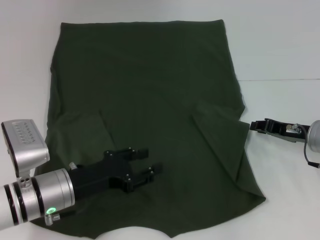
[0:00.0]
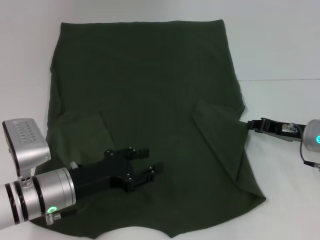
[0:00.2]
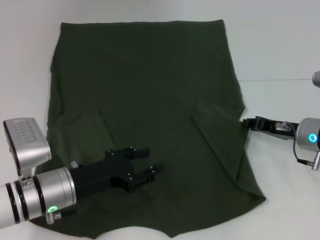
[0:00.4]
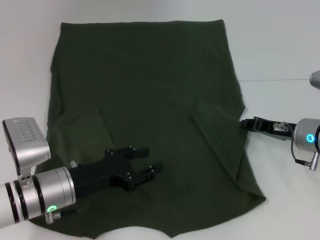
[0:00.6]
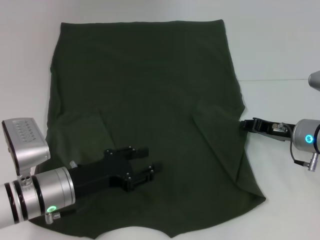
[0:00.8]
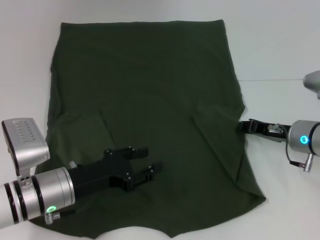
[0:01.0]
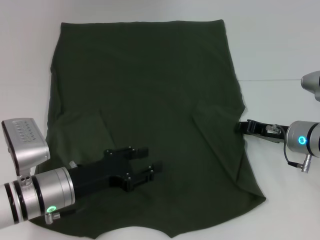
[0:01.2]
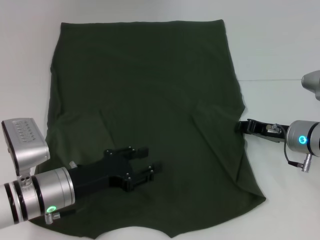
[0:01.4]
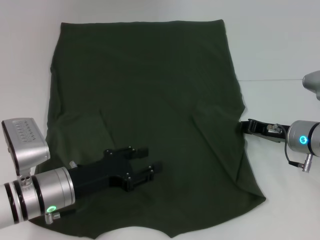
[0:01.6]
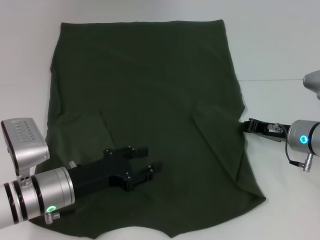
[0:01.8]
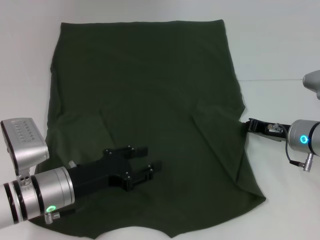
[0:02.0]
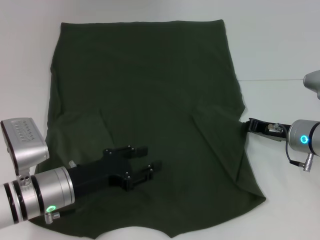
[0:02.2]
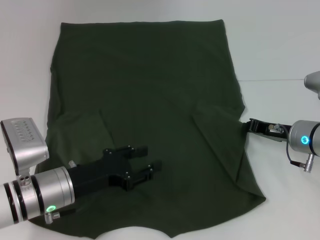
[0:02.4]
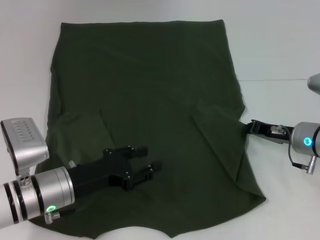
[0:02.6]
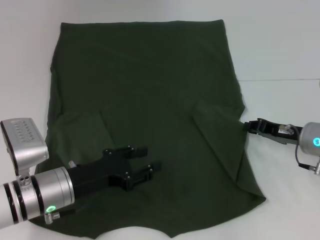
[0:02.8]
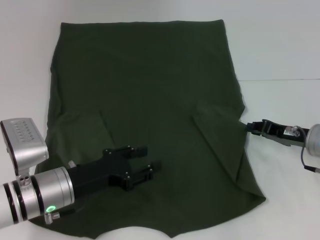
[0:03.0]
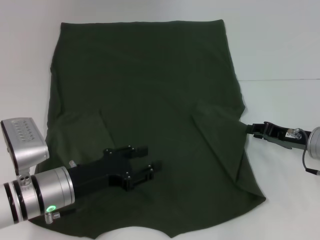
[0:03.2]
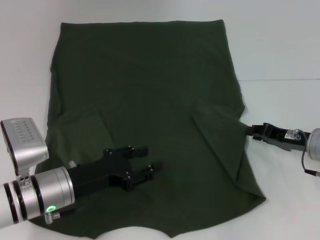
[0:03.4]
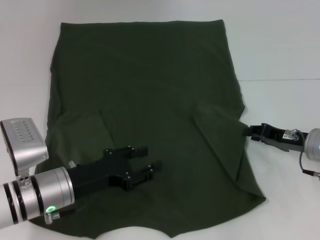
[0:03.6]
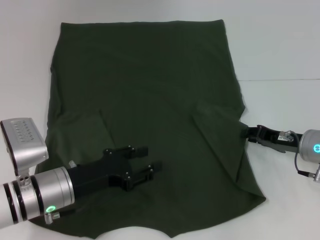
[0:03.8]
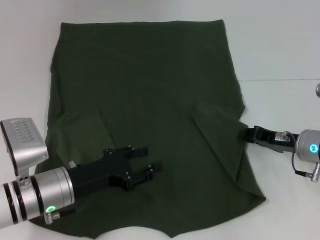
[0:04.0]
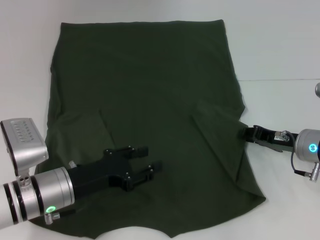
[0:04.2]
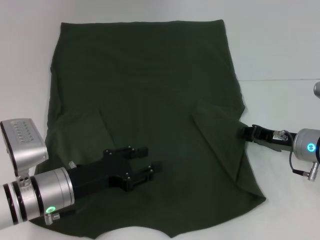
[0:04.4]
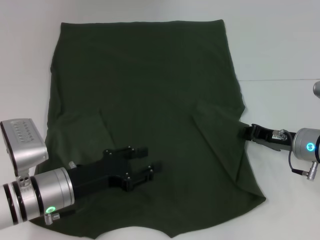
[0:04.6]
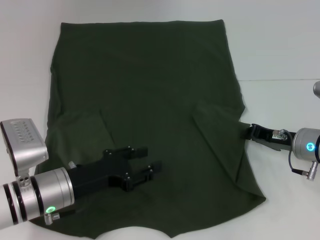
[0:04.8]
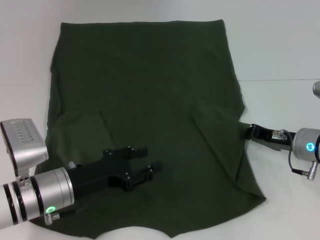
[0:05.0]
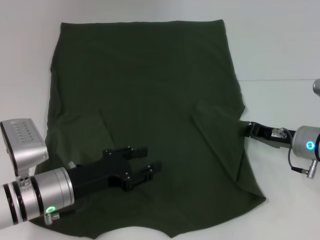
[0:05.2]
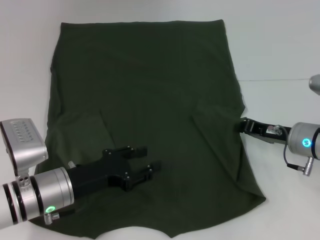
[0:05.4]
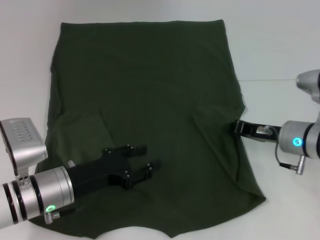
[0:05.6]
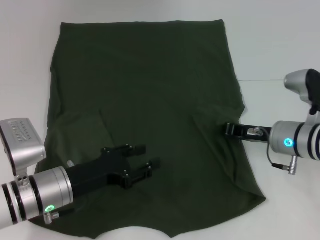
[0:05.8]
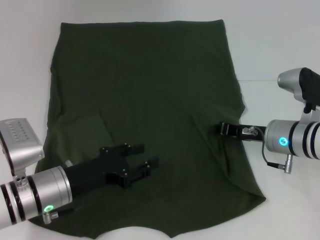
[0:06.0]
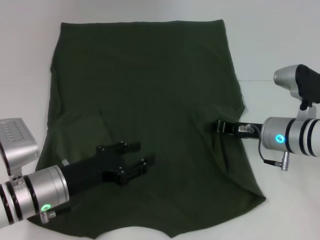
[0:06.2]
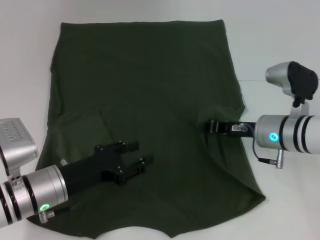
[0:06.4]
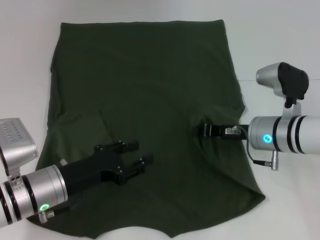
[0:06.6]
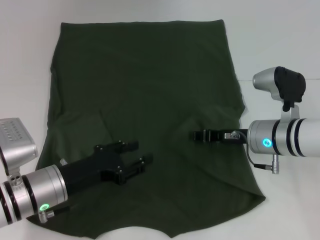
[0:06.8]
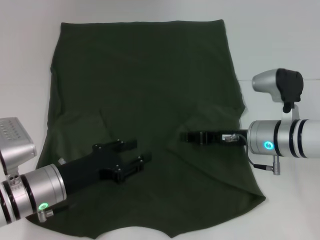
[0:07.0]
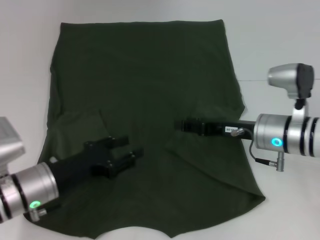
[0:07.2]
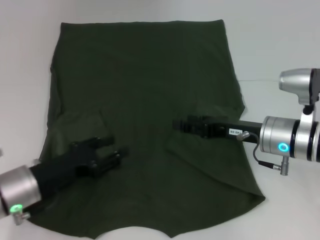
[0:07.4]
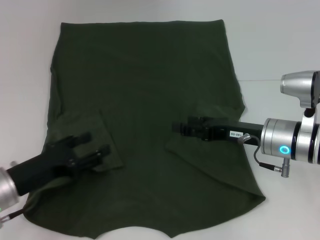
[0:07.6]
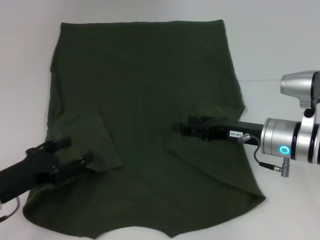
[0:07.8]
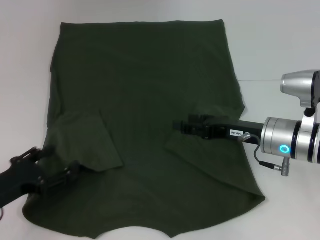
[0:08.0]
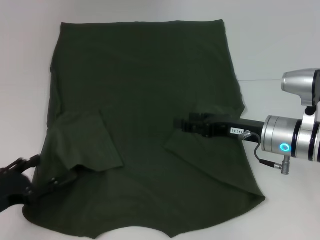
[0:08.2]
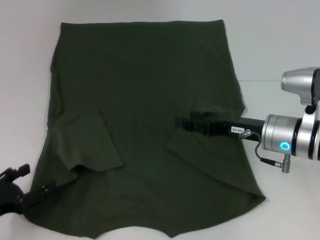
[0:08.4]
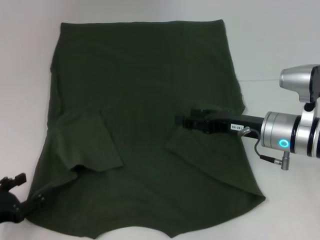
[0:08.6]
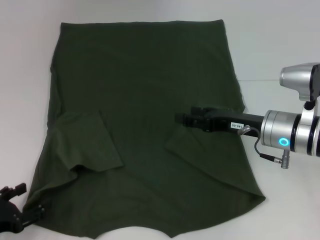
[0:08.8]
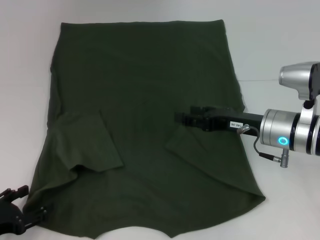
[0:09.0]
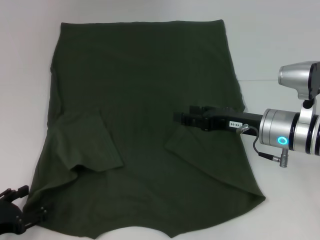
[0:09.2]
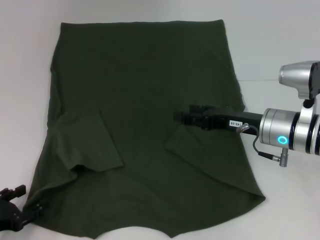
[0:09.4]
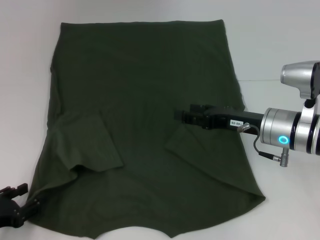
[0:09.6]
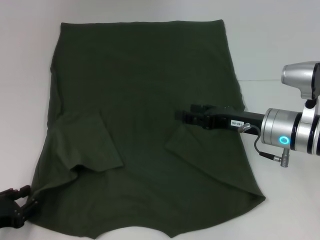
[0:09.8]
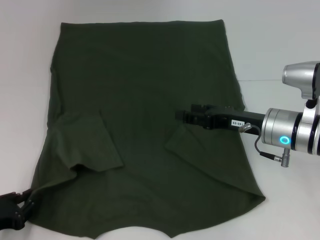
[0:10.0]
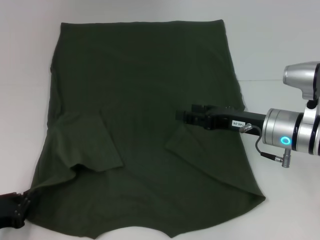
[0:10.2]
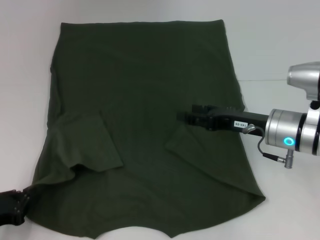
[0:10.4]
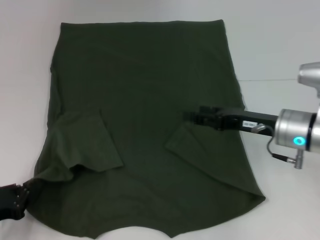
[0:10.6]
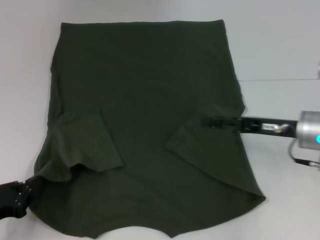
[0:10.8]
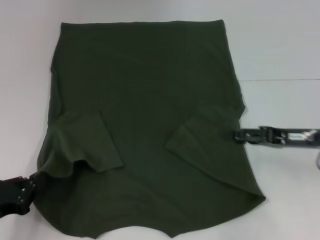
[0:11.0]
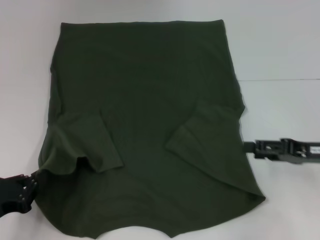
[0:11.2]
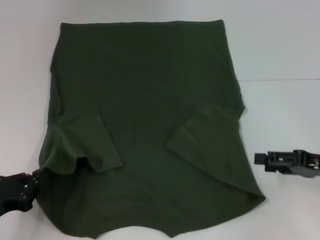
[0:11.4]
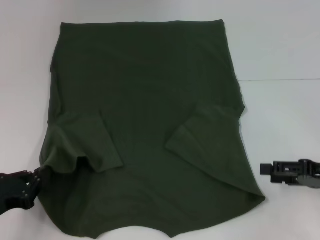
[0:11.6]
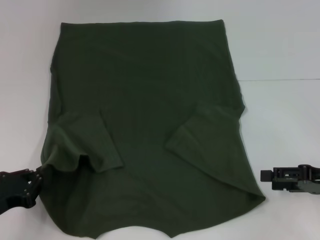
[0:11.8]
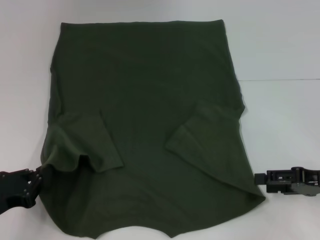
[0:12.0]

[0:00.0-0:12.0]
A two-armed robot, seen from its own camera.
Step, 0:00.0 to 0:06.8: Fold the bottom right sleeve with your right hand.
Step, 0:07.0 to 0:10.2: Grab the bottom left corner with your left hand.
0:00.0 to 0:04.4: The grippers make only small movements.
0:04.4 to 0:06.0: The right gripper shifts by about 5 cm.
0:06.0 to 0:07.6: The right gripper opens its fingers, while the left gripper shifts approximately 5 cm to the left.
0:07.6 to 0:09.0: The left gripper shifts roughly 10 cm backward and to the left.
0:09.0 to 0:10.4: The left gripper closes up.
0:10.4 to 0:12.0: The right gripper goes some 15 cm to the right and backward.

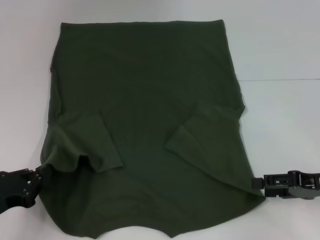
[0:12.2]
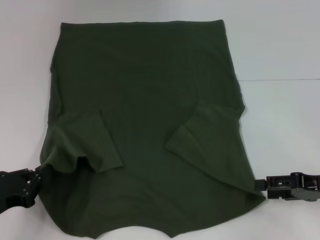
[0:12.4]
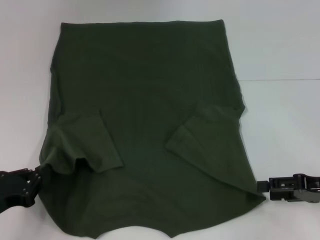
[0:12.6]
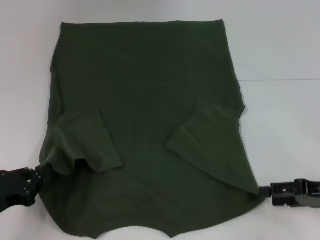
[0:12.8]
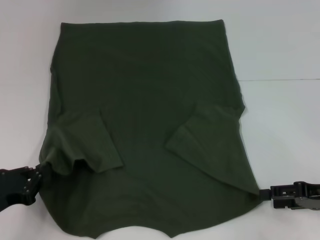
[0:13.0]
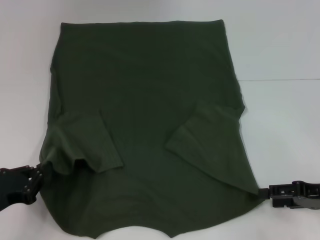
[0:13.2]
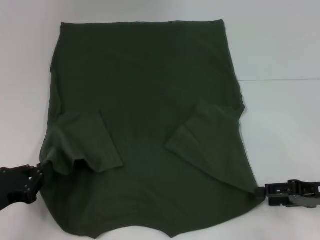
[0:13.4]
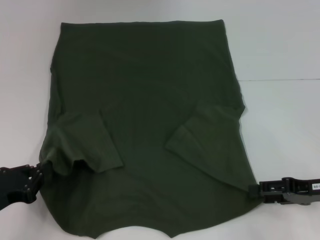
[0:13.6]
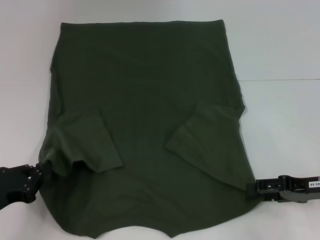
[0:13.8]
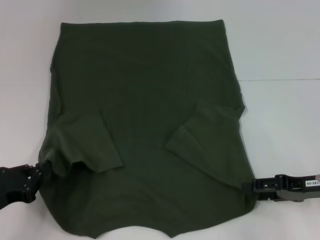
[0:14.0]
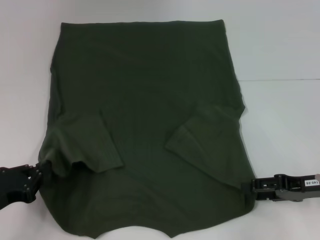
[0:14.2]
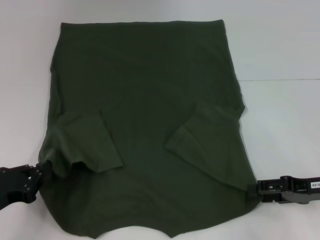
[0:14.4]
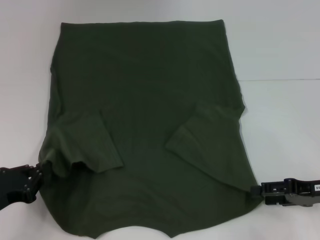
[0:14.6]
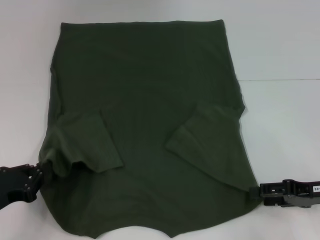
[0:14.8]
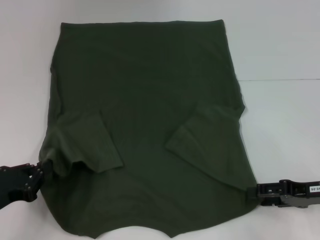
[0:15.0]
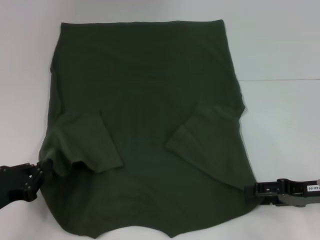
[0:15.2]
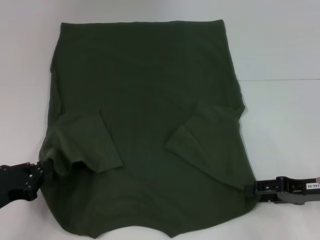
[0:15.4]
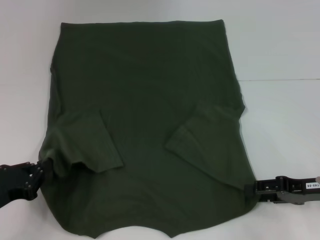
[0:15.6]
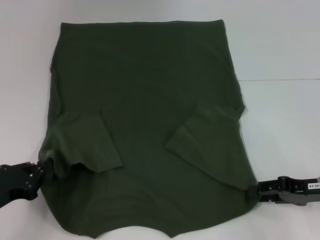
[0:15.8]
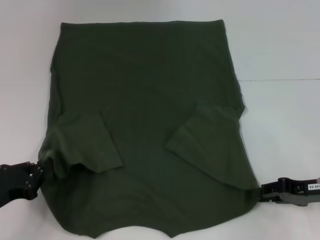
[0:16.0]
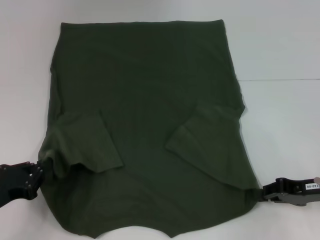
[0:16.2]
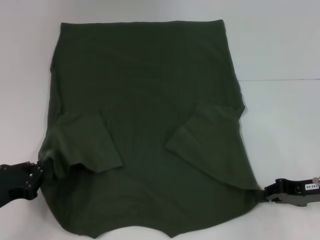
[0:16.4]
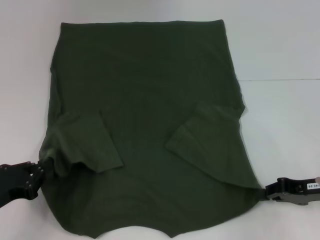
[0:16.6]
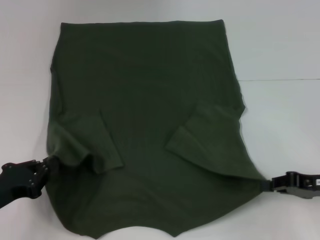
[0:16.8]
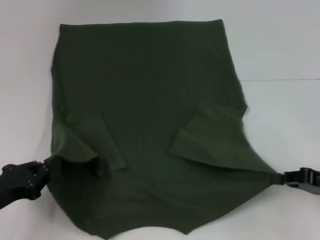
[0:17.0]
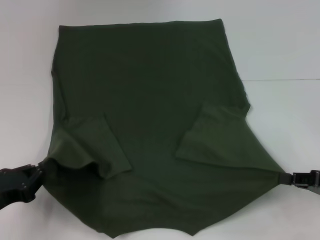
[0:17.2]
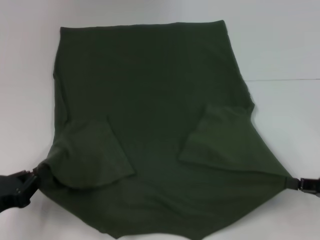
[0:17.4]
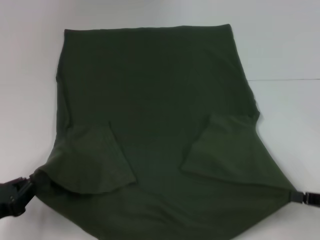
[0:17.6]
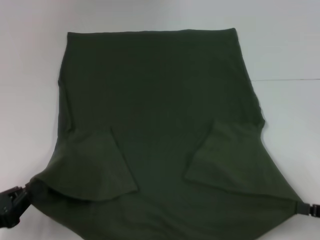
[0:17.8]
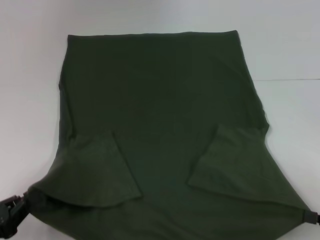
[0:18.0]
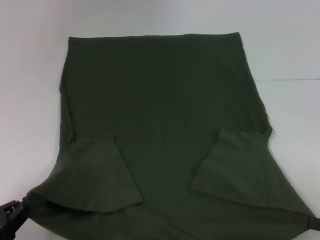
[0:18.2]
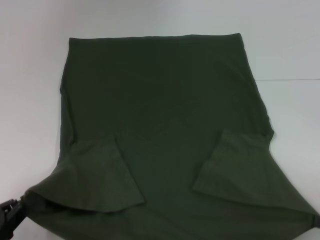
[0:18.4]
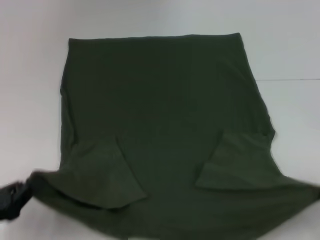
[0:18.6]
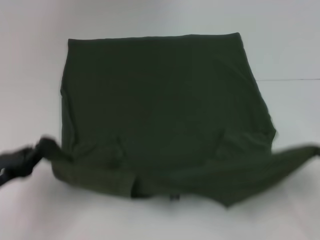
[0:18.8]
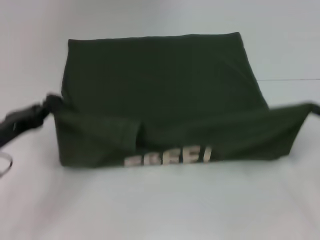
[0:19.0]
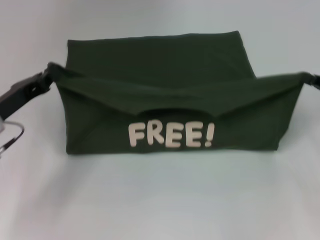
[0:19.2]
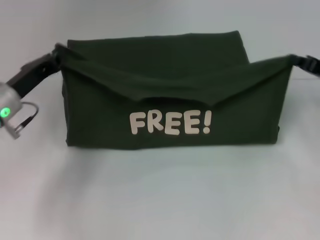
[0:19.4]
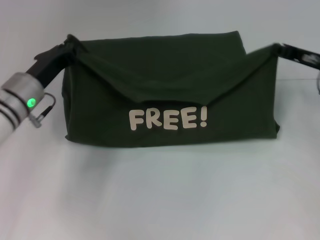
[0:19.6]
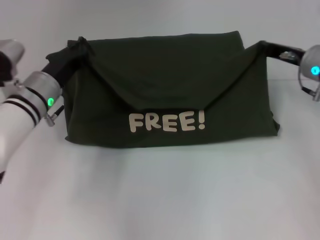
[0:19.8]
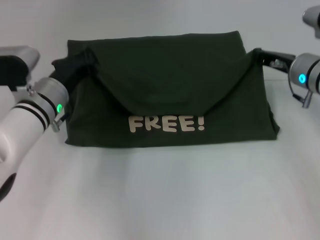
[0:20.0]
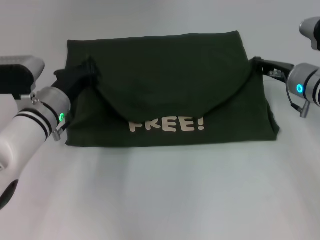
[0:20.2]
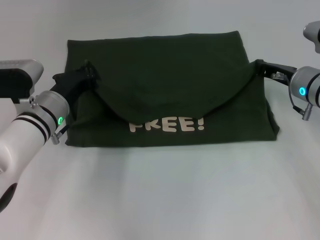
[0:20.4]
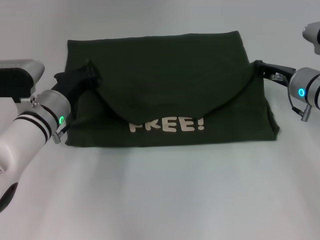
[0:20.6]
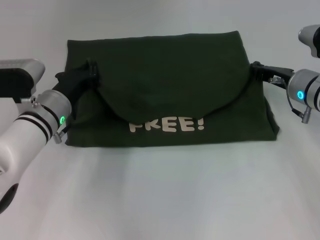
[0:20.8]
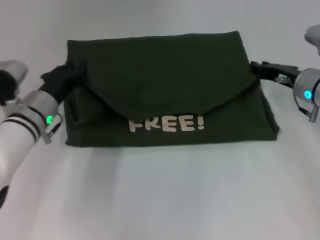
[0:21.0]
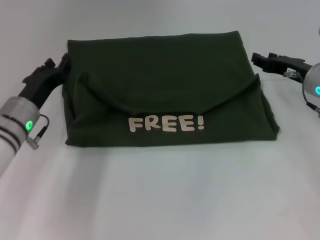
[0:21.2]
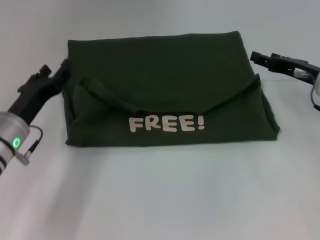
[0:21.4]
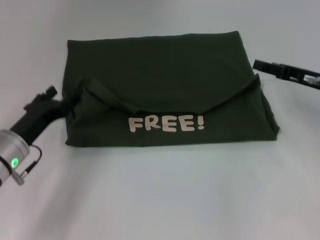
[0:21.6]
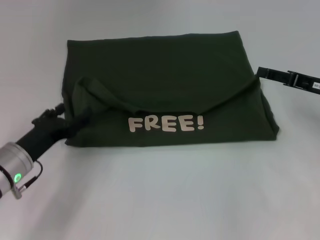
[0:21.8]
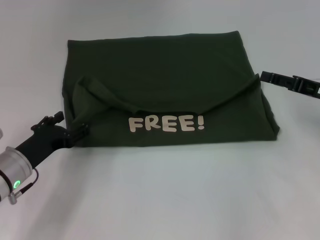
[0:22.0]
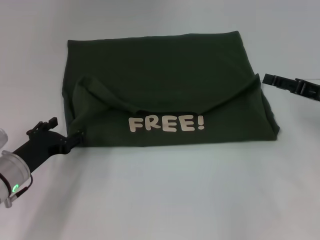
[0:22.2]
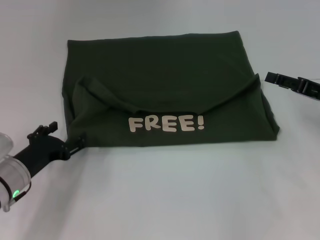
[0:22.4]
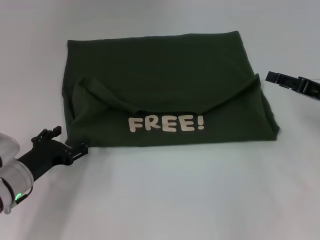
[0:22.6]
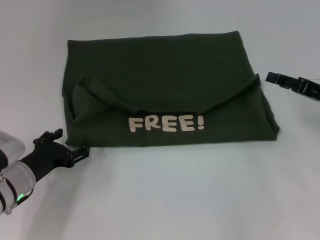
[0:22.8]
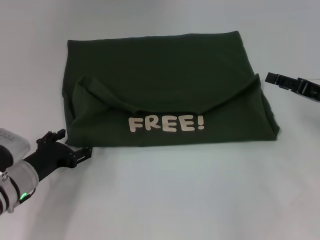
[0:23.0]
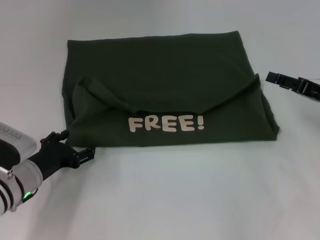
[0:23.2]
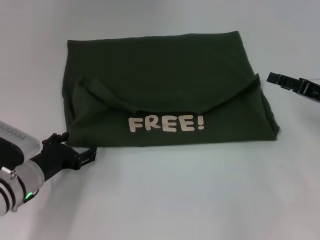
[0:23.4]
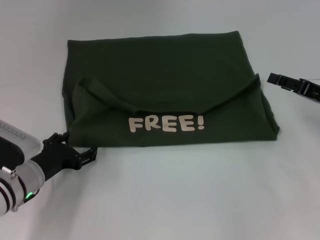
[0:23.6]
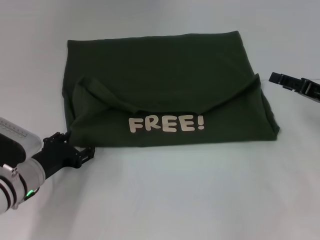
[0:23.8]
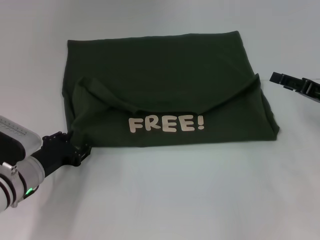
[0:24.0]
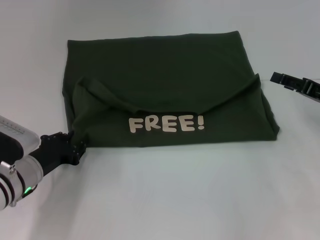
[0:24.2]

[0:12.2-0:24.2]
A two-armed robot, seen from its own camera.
Step, 0:12.2 to 0:16.4: Grab the bottom right corner with your right hand.
Step, 0:16.6 to 0:21.0: Fold the clothes with your right hand.
0:12.2 to 0:13.8: The grippers move only a little.
0:13.8 to 0:15.2: Both grippers stay put.
0:15.2 to 0:16.6: The right gripper closes up.
0:16.6 to 0:18.2: The left gripper moves backward, about 10 cm; the right gripper shifts roughly 15 cm backward and to the right.
0:18.2 to 0:19.8: The left gripper is displaced forward and to the right by approximately 30 cm. The right gripper moves forward and to the left, approximately 30 cm.
0:19.8 to 0:21.2: The left gripper ends up about 5 cm from where it was, and opens up.
0:21.2 to 0:22.6: The right gripper goes about 10 cm backward and to the right, and opens up. The left gripper moves backward and downward, approximately 10 cm, and opens its fingers.
0:22.6 to 0:24.2: The grippers stay close to where they were, moving slightly.
